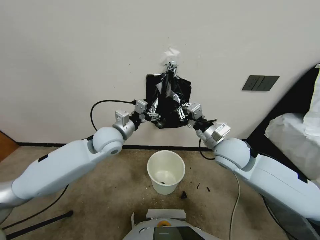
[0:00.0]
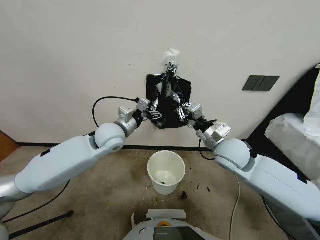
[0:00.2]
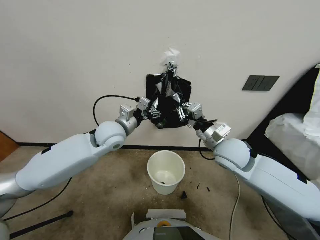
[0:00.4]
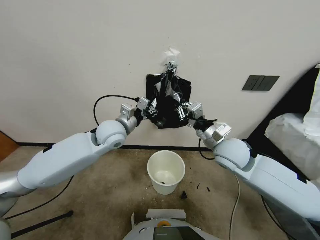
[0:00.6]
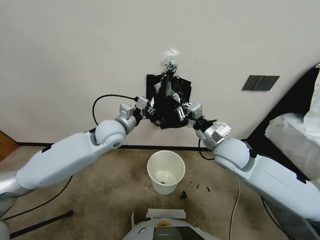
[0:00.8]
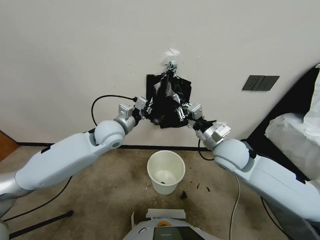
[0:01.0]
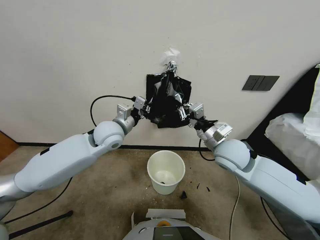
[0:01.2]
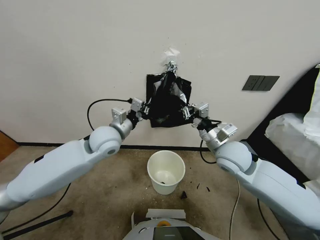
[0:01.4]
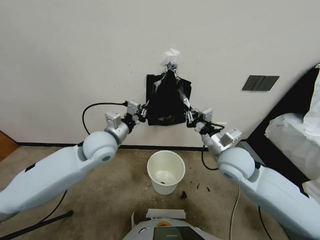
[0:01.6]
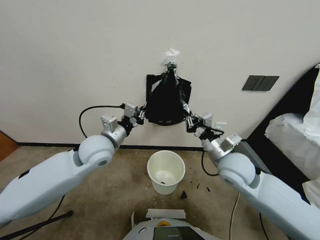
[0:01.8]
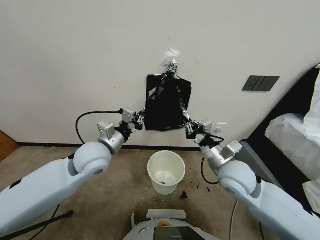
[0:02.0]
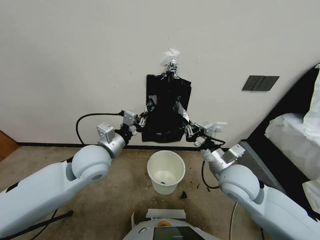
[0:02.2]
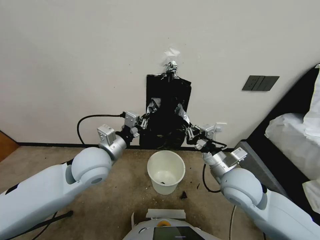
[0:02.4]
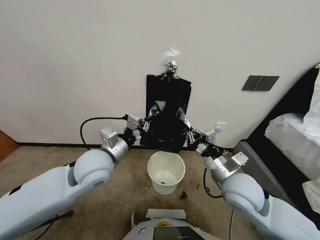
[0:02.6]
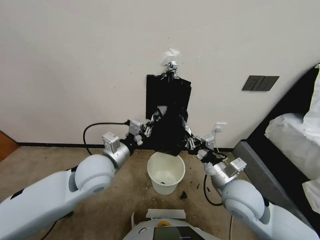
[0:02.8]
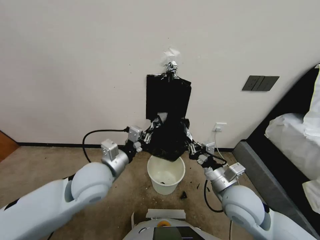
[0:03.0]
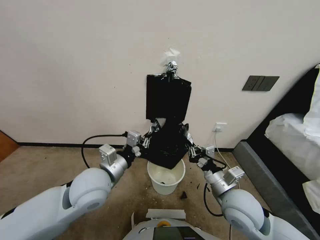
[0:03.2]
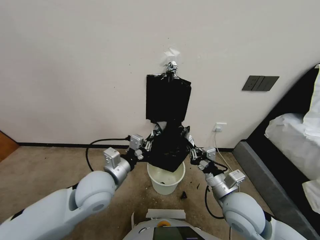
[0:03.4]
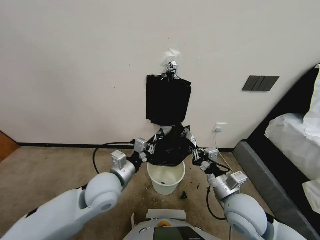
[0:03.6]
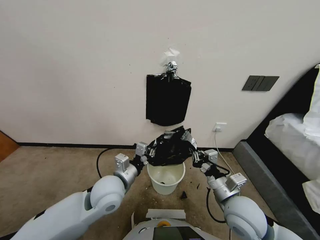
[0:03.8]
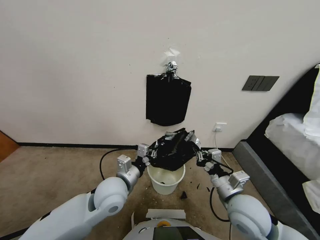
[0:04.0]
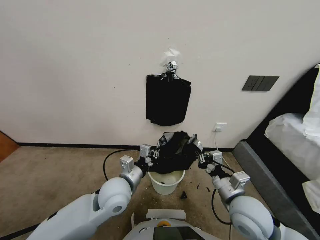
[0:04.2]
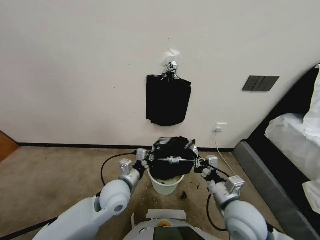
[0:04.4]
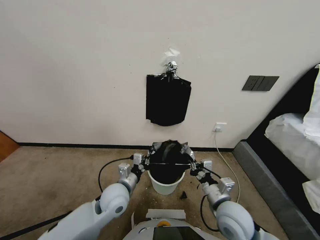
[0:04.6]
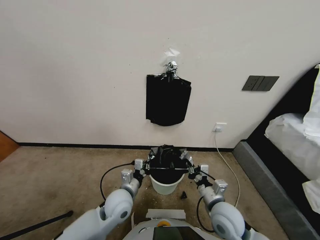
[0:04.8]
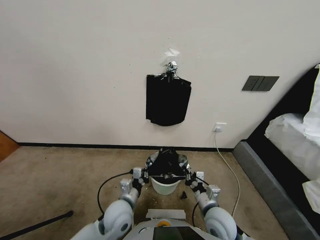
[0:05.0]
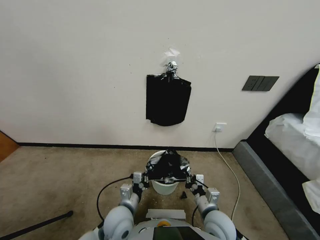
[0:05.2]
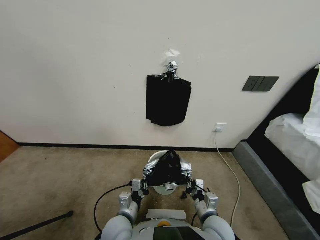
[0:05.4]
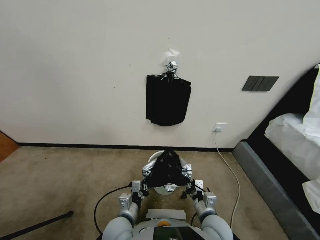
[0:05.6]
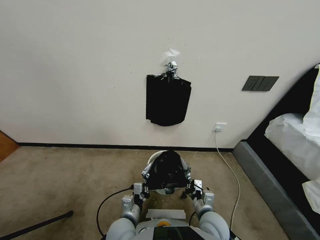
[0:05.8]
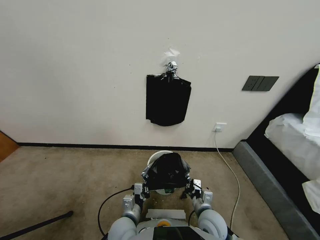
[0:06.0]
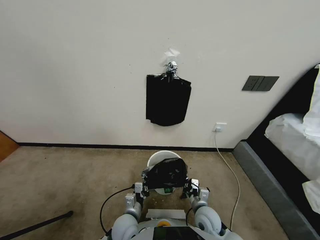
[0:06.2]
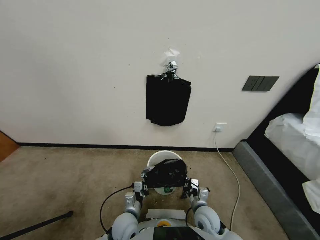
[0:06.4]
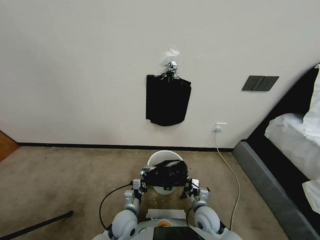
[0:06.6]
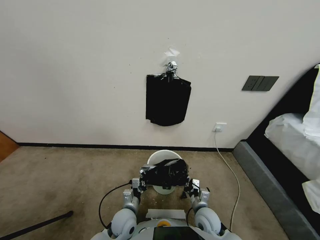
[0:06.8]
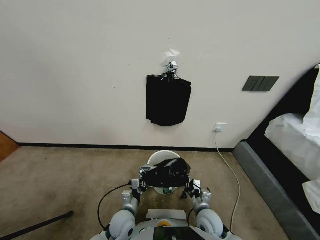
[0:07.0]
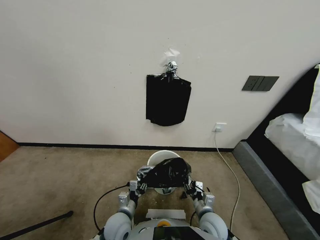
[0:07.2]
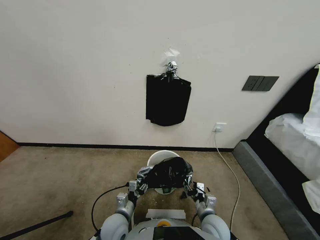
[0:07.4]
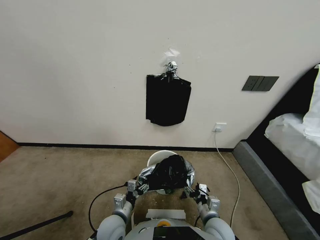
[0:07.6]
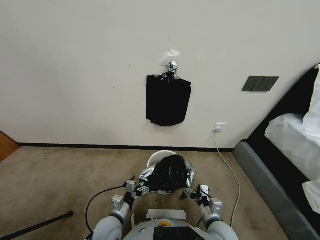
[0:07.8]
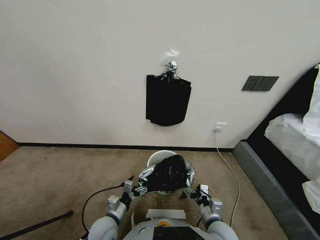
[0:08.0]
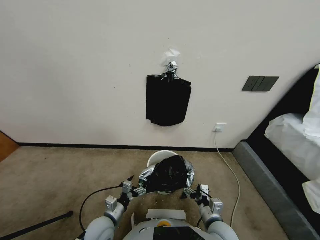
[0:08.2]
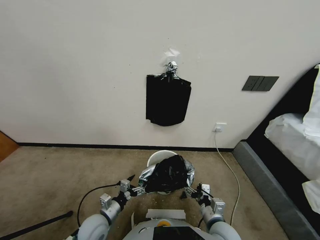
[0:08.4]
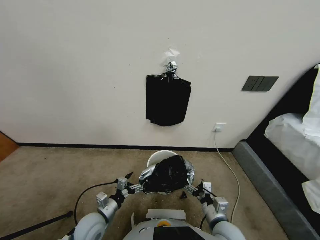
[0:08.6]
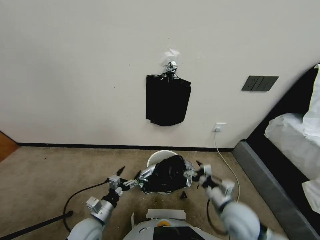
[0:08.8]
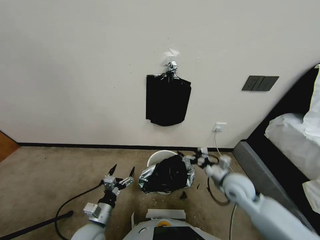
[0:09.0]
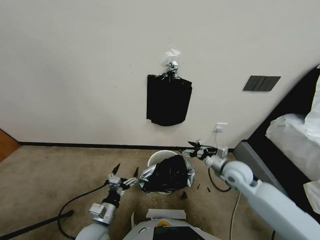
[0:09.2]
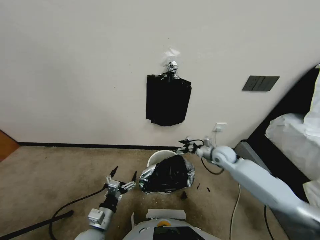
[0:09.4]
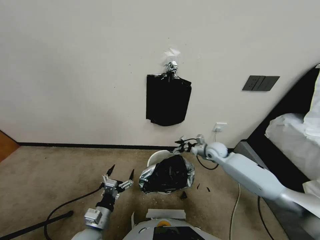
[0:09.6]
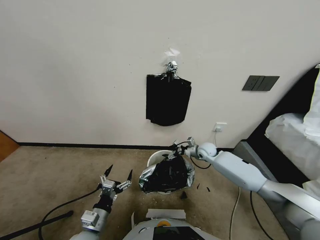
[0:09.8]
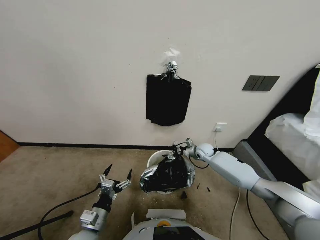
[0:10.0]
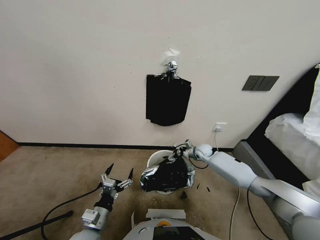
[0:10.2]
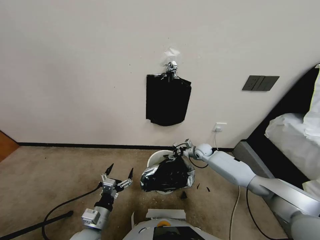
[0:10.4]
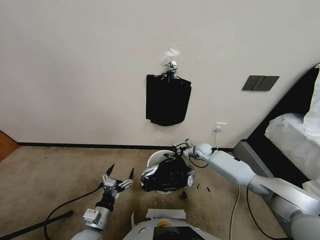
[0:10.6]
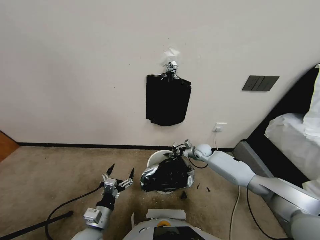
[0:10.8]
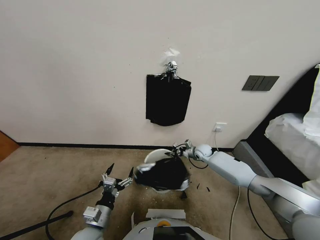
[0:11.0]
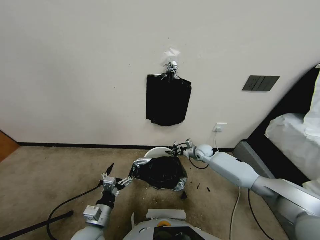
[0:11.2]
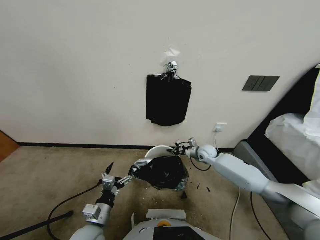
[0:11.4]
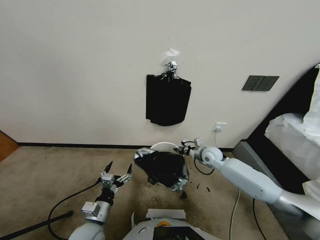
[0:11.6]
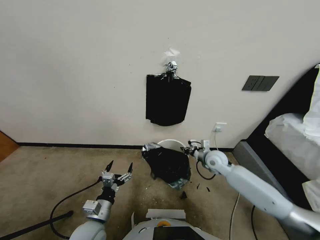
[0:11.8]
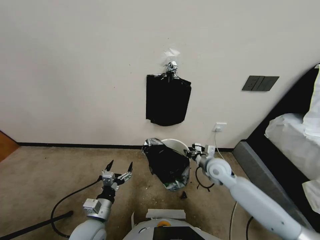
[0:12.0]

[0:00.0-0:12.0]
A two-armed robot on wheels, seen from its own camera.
Task of the whole recording: Place a trash bag onto the trash bin.
0:00.0 to 0:01.6: The left gripper travels backward by some 5 cm, and closes up.
0:01.6 to 0:03.0: The left gripper moves backward, about 10 cm; the right gripper travels backward and downward by approximately 10 cm.
0:03.0 to 0:04.4: The right gripper ends up approximately 5 cm from where it was, while the left gripper shifts approximately 10 cm downward.
0:04.4 to 0:06.0: The right gripper travels downward by some 15 cm, while the left gripper shifts about 15 cm downward and backward.
0:06.0 to 0:07.6: The left gripper goes about 5 cm to the left, and opens up; the right gripper changes place by roughly 5 cm, and opens.
0:07.6 to 0:09.0: The left gripper ends up approximately 5 cm from where it was, while the right gripper travels forward, upward and to the right by some 25 cm.
0:09.0 to 0:10.4: The right gripper travels forward and downward by roughly 20 cm, and closes.
0:10.4 to 0:12.0: The right gripper is displaced backward and upward by some 20 cm, and closes its fingers.

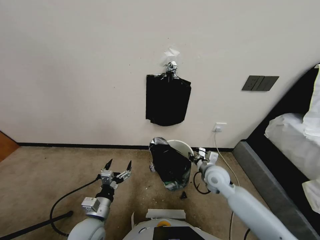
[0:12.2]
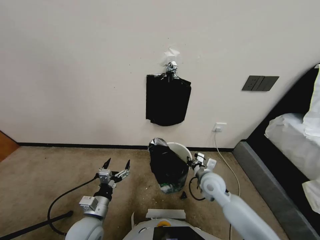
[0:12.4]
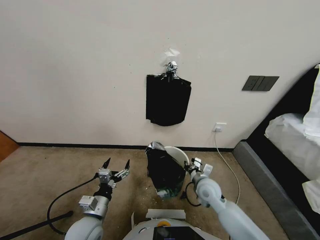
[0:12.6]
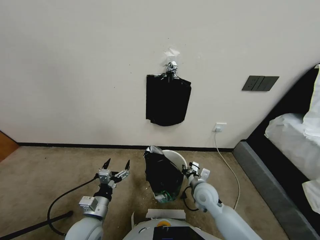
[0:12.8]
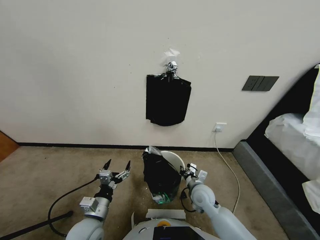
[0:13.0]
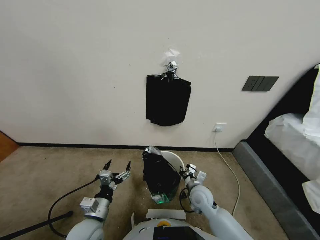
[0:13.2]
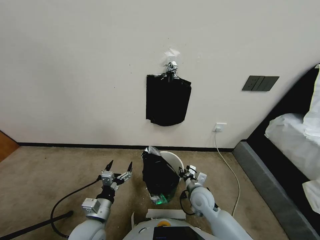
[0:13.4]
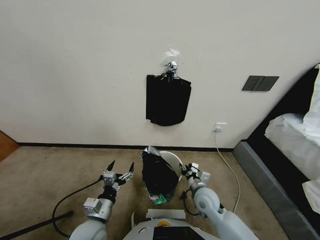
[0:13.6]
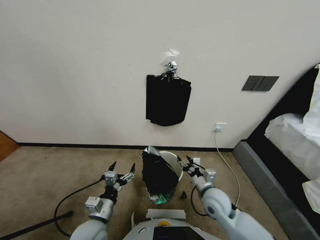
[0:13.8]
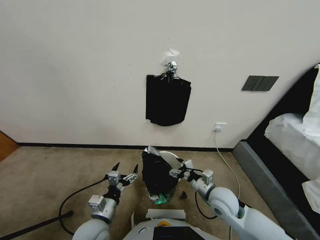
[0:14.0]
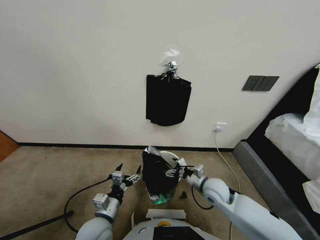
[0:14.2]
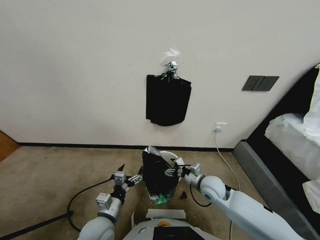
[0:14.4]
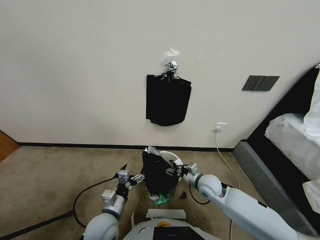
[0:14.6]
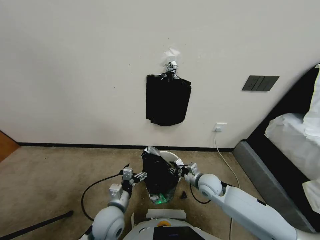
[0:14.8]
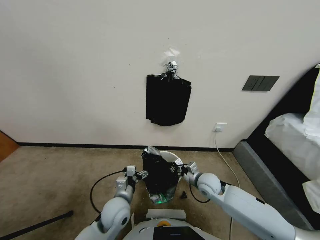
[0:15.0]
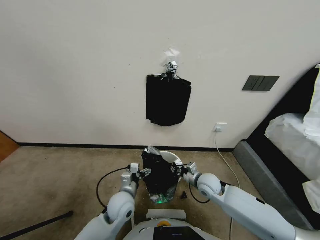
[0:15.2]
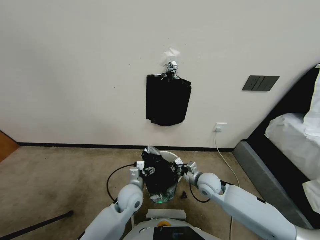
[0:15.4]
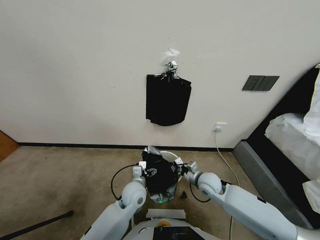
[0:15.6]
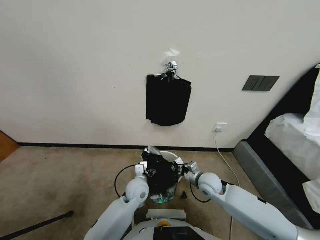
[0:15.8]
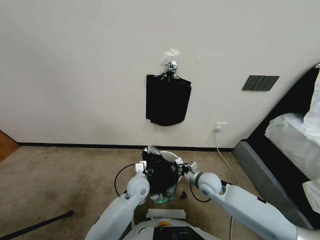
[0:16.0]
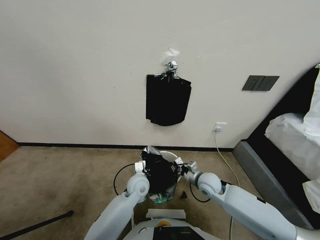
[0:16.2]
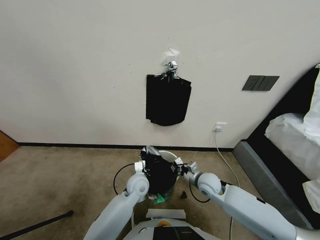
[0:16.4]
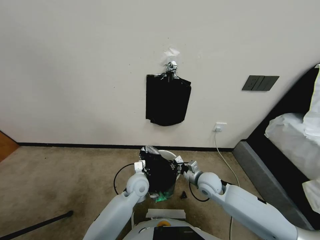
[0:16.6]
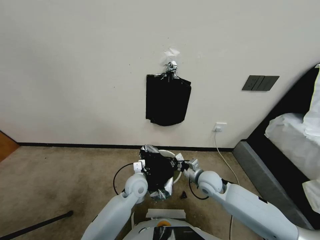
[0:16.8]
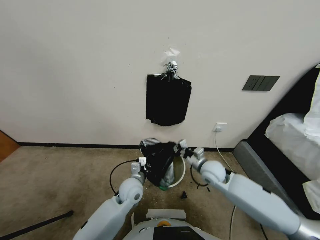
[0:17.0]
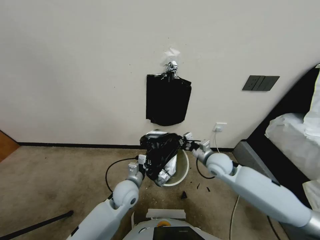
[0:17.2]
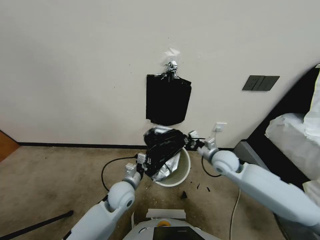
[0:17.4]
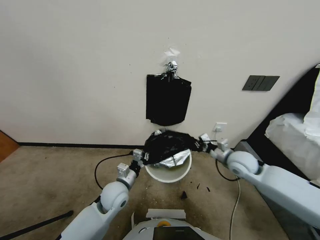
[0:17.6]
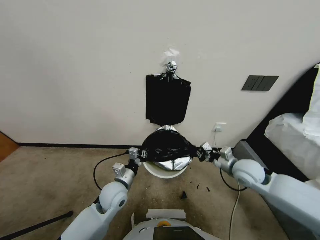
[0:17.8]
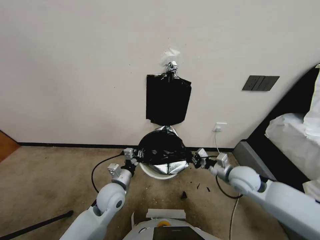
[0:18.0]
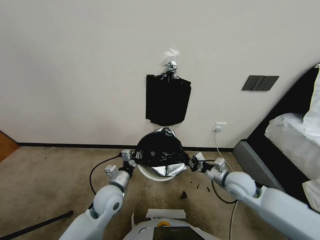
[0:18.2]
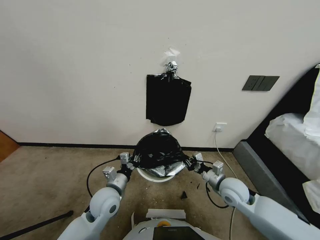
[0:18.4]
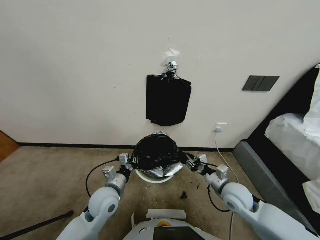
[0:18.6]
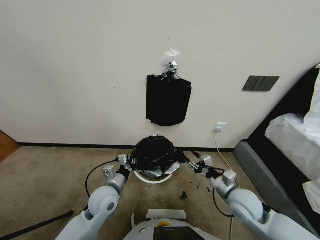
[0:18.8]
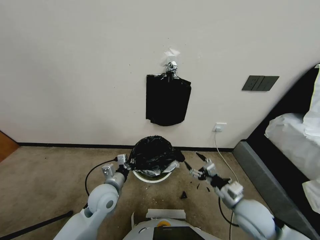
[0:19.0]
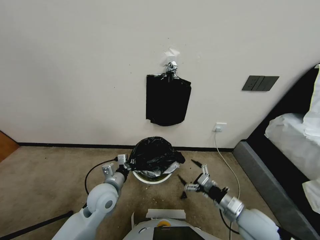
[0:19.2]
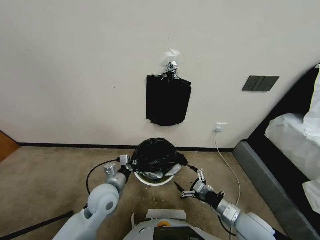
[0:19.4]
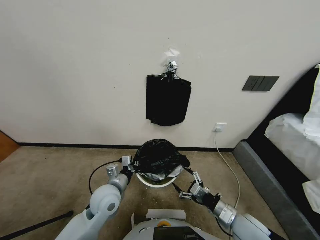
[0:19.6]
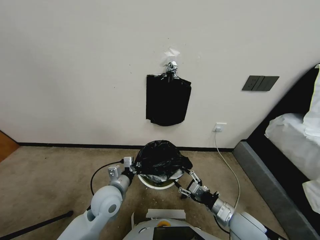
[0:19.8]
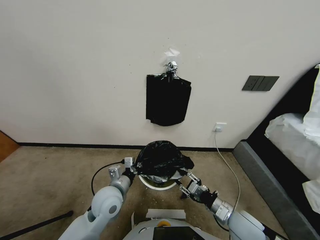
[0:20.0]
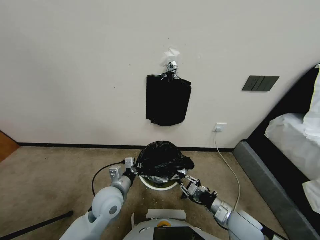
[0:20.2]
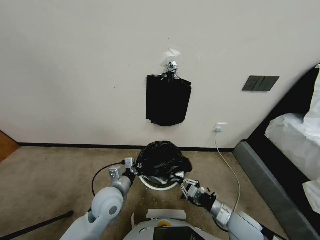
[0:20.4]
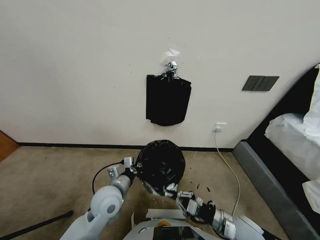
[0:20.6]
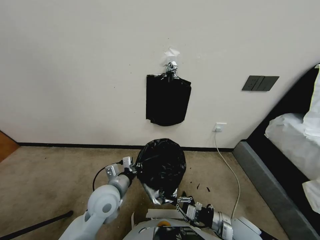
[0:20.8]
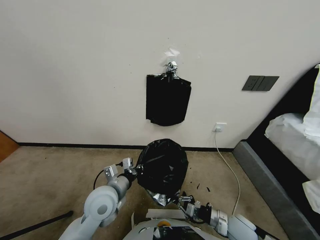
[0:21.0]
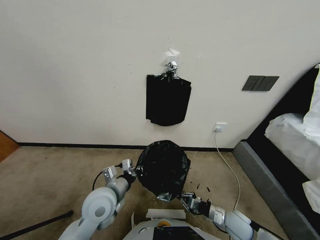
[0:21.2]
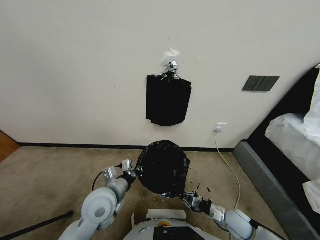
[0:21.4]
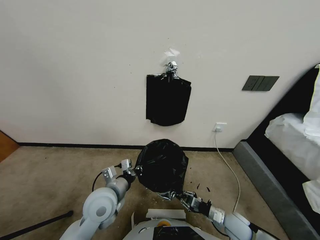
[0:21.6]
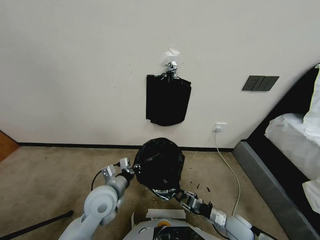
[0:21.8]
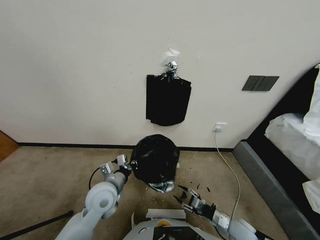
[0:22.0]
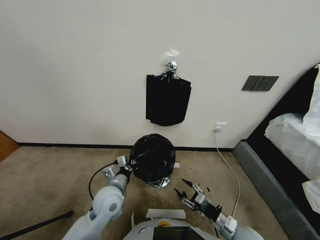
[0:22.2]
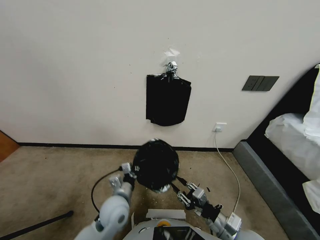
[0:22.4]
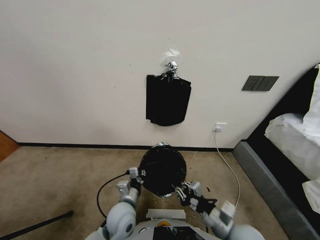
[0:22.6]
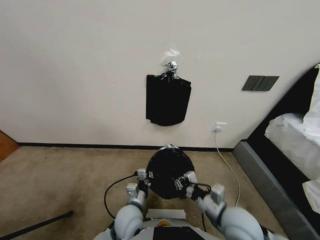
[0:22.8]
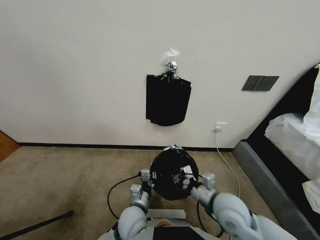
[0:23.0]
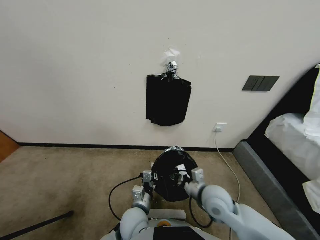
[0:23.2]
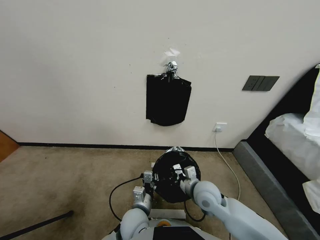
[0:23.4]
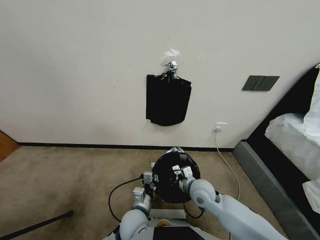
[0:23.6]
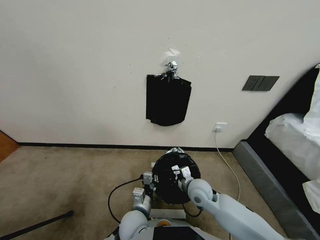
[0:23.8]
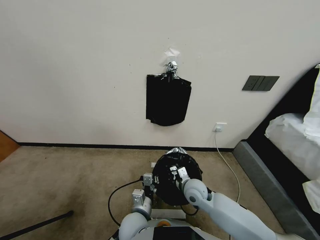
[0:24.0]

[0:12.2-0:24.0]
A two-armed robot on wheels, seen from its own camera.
Task of the whole recording: Place a trash bag onto the trash bin.
0:12.2 to 0:13.6: The right gripper moves backward, roughly 5 cm, and opens up.
0:13.6 to 0:15.2: The right gripper moves forward, roughly 5 cm, and closes its fingers. Meanwhile the left gripper heads forward and to the right, covering about 15 cm.
0:15.2 to 0:16.6: The left gripper goes about 5 cm forward, and closes.
0:16.6 to 0:18.2: The left gripper heads to the left and backward, covering roughly 10 cm. The right gripper shifts roughly 5 cm to the right.
0:18.2 to 0:19.6: The right gripper moves backward, roughly 10 cm, and opens.
0:19.6 to 0:21.0: The right gripper shifts roughly 10 cm downward, and closes its fingers.
0:21.0 to 0:22.6: The right gripper is displaced upward and to the left by some 15 cm, and opens, then closes once more. Meanwhile the left gripper travels downward and to the right by roughly 10 cm.
0:22.6 to 0:24.0: The right gripper travels forward, downward and to the left by roughly 20 cm.
